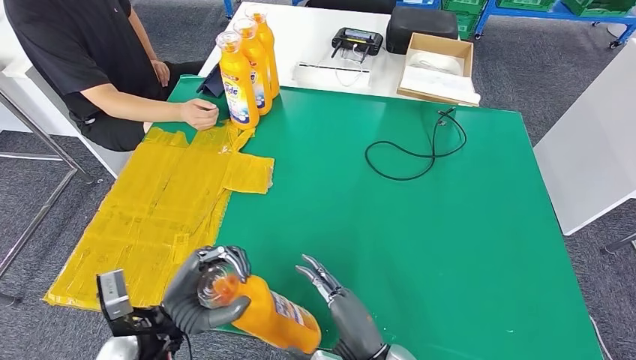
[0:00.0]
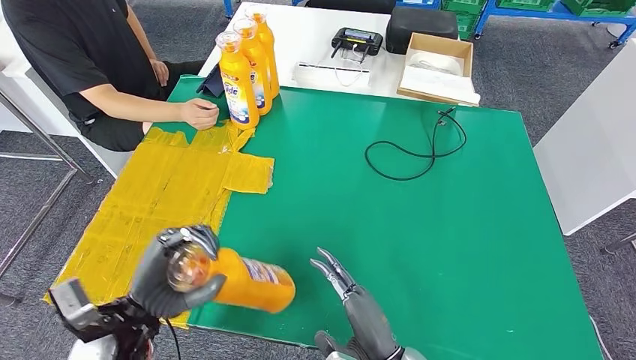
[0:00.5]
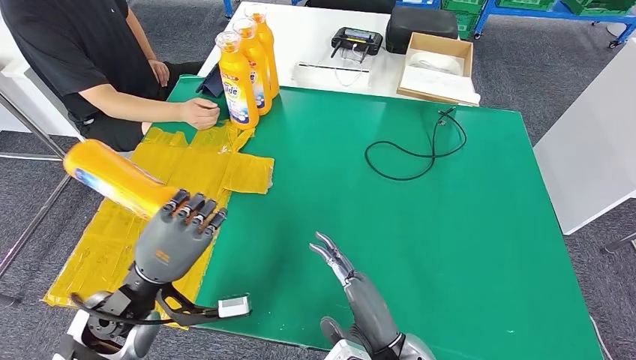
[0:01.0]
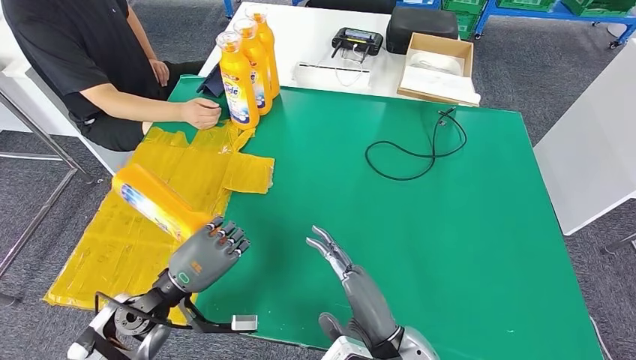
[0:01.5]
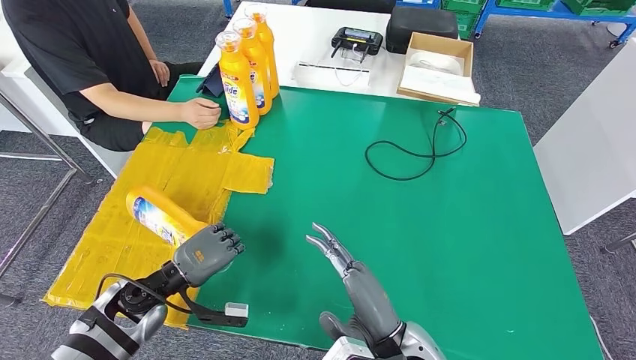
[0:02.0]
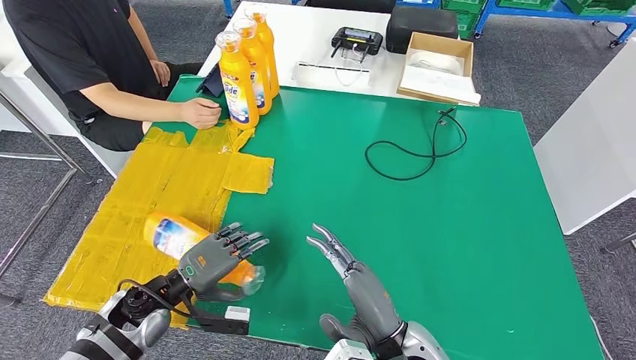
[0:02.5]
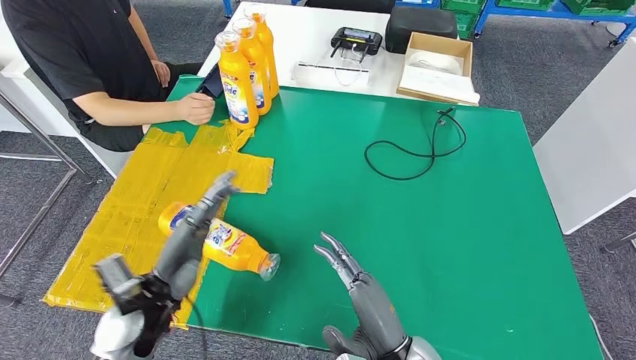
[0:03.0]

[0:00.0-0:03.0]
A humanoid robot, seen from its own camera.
Step, 0:00.0 to 0:03.0: Flip the bottle to face forward.
0:00.0 to 0:01.5: The left hand ends up about 5 cm from where it was.
